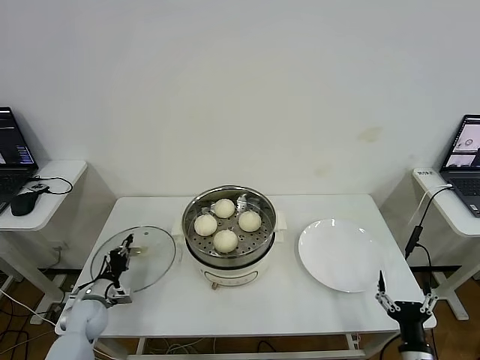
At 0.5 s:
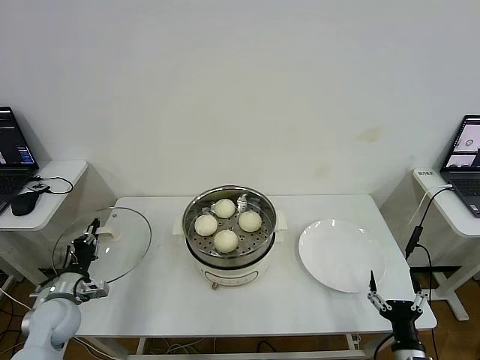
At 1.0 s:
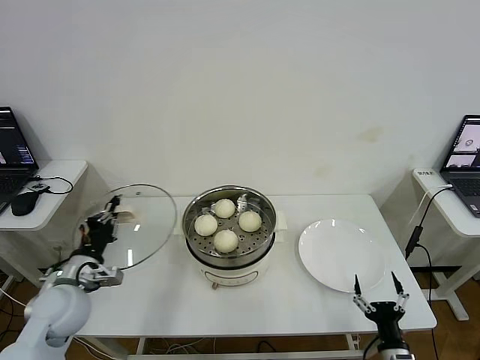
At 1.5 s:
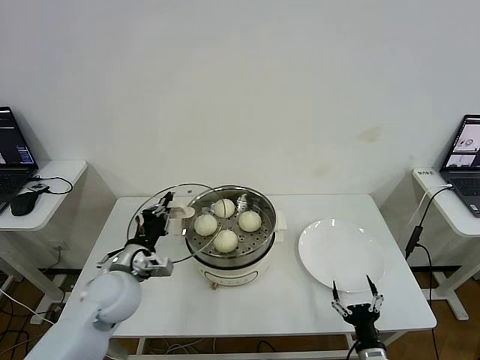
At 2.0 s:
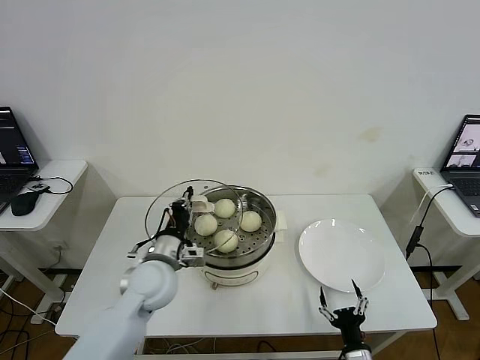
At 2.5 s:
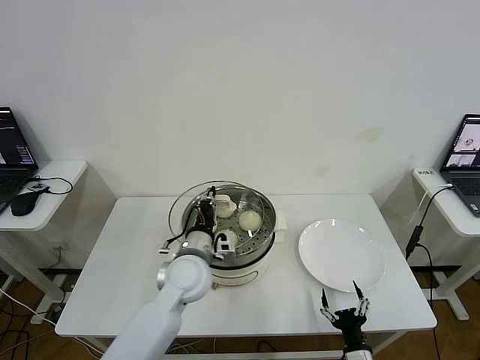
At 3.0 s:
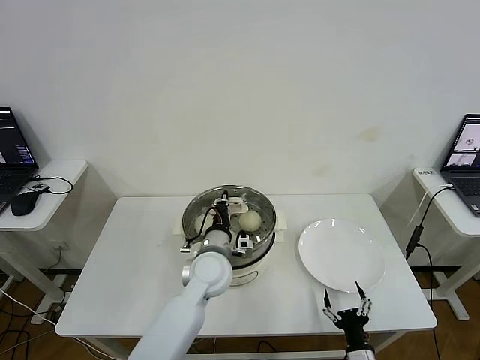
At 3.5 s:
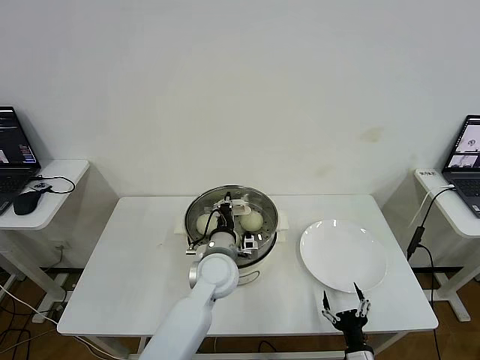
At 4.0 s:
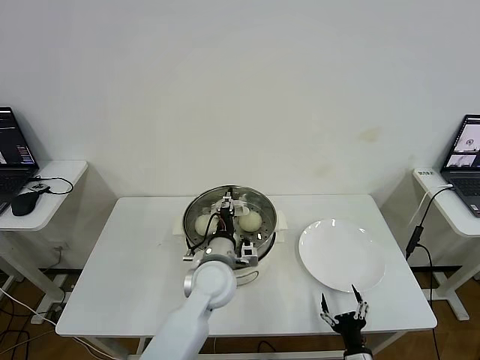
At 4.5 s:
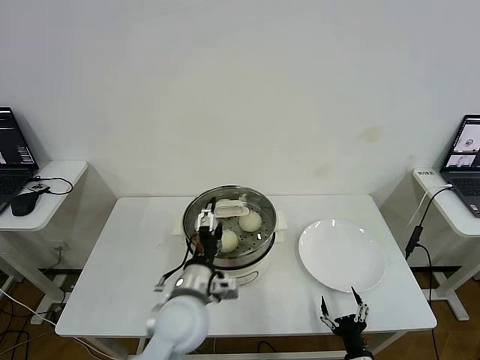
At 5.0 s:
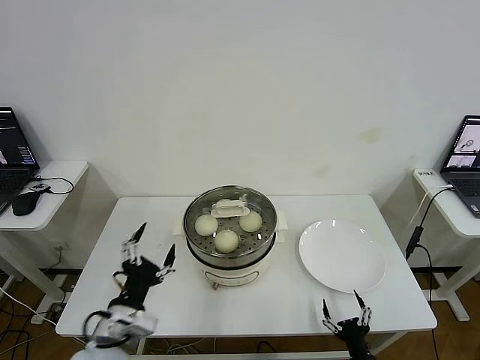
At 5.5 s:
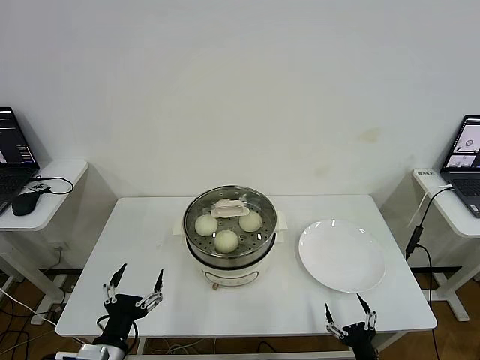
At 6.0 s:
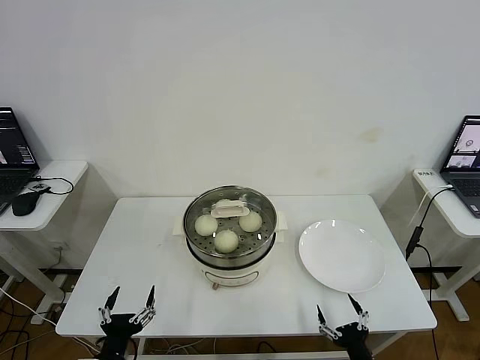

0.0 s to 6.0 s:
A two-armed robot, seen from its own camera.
Step, 0.0 to 3.5 s: Place the pot lid on the steamer with left gripper.
0.0 to 2.0 s: The right gripper shifts some 10 cm to the left, while the left gripper travels to the right and upward by roughly 30 cm.
2.0 to 4.0 s: The left gripper goes some 15 cm to the right, and opens up.
4.0 to 6.0 s: The right gripper changes place by roughly 5 cm. Meanwhile the left gripper heads backward and to the left, covering roughly 30 cm, and opens up.
